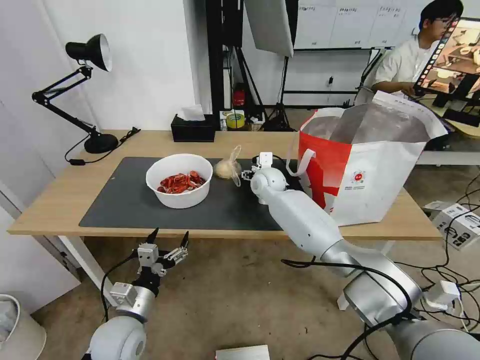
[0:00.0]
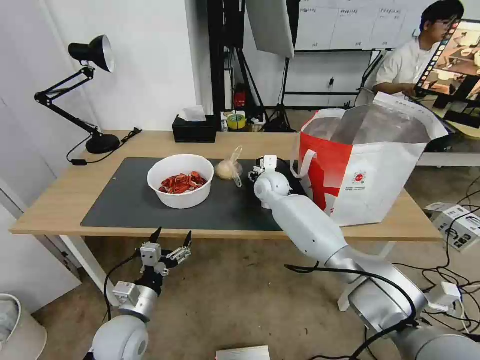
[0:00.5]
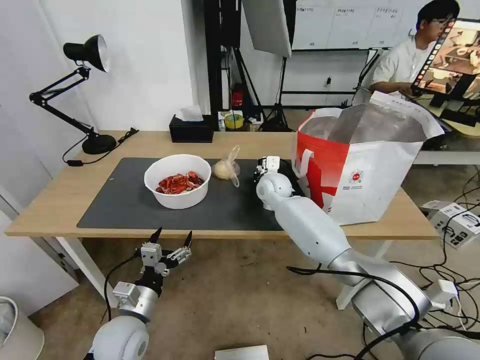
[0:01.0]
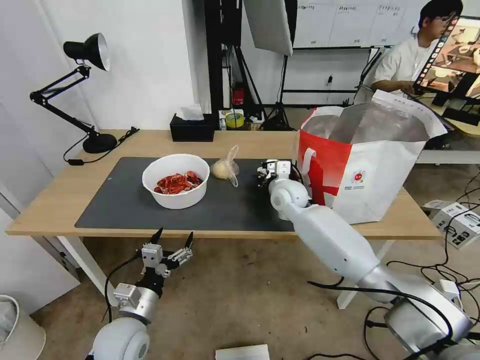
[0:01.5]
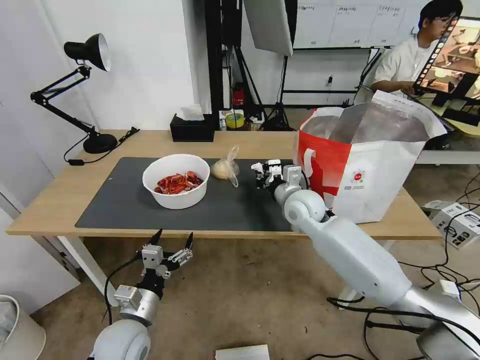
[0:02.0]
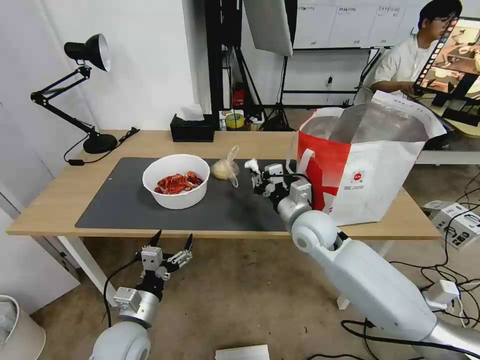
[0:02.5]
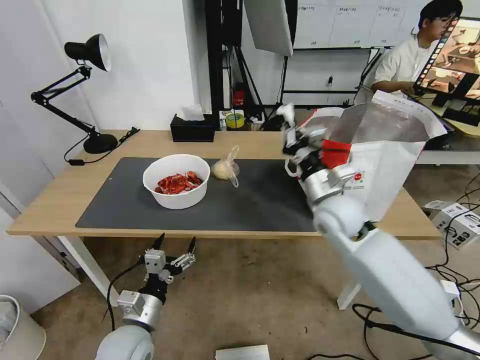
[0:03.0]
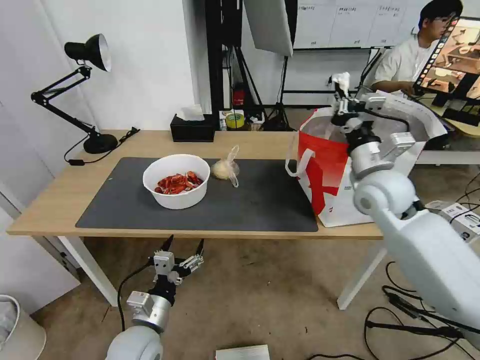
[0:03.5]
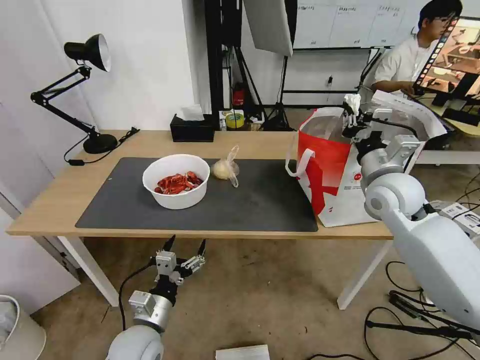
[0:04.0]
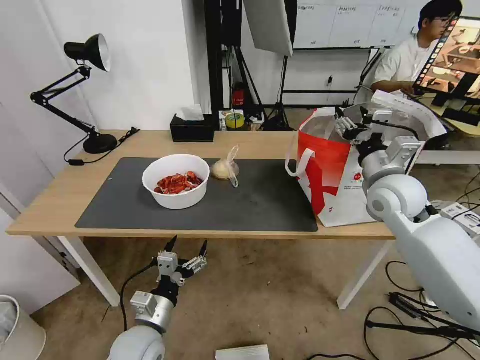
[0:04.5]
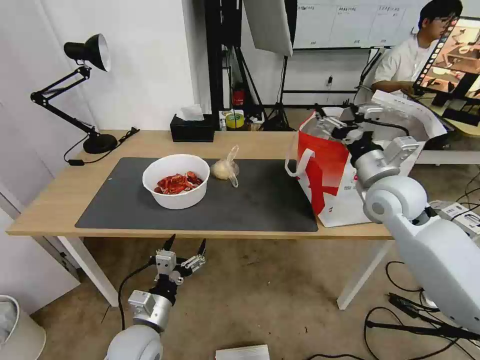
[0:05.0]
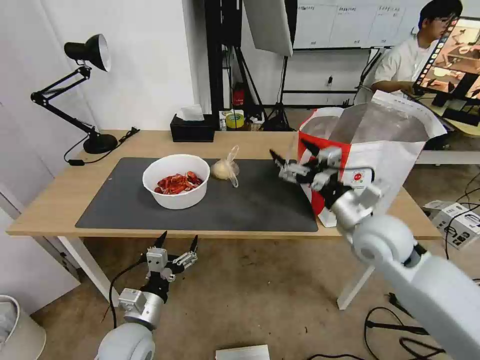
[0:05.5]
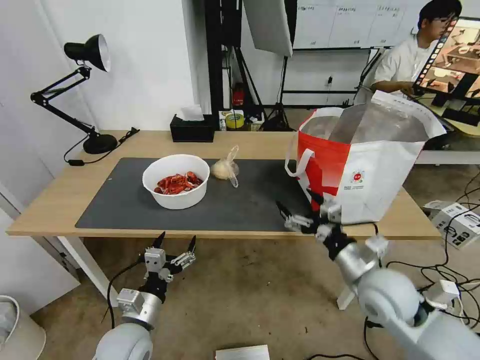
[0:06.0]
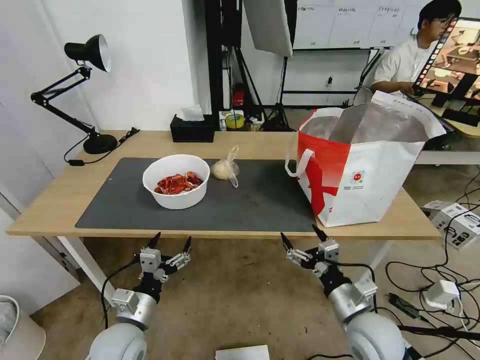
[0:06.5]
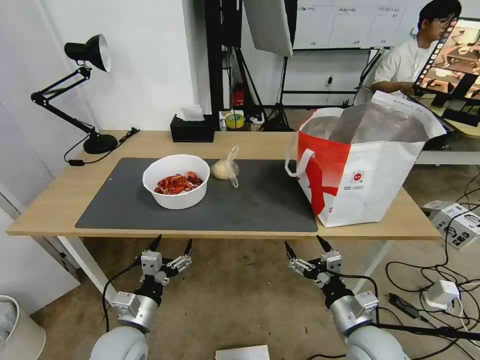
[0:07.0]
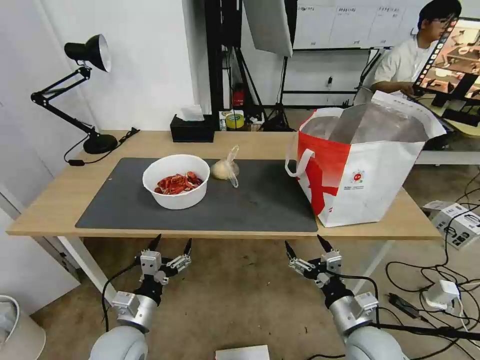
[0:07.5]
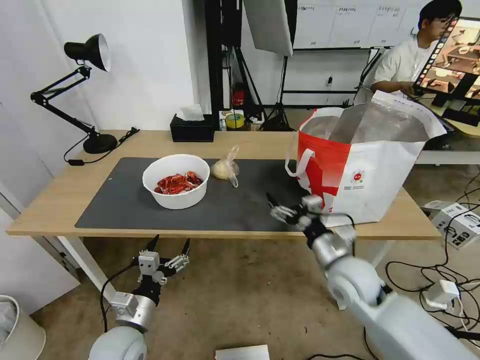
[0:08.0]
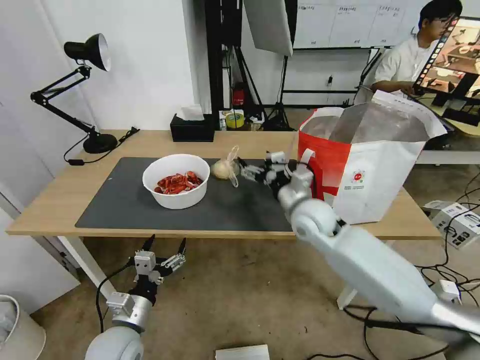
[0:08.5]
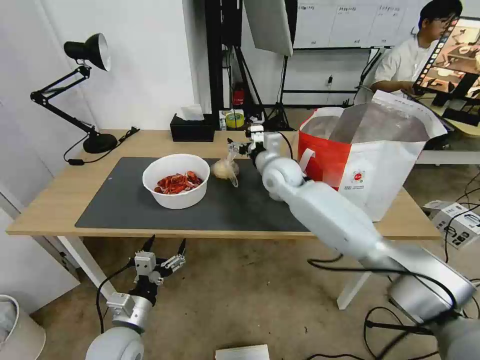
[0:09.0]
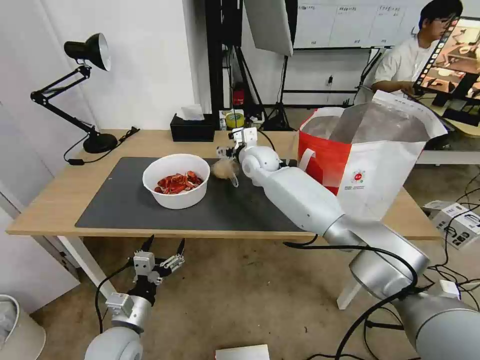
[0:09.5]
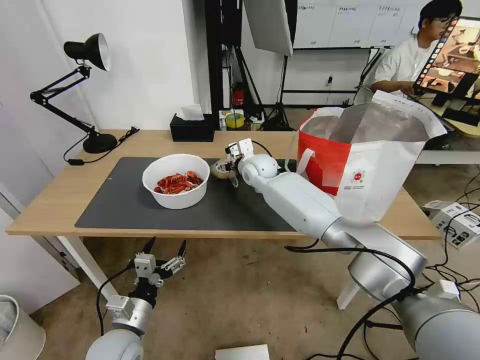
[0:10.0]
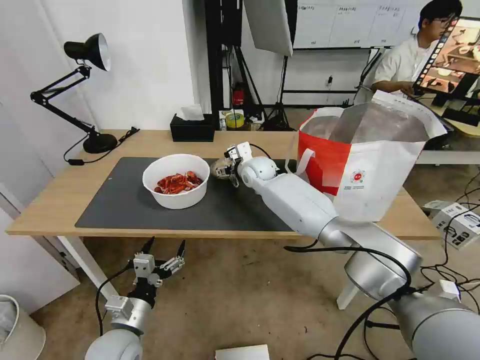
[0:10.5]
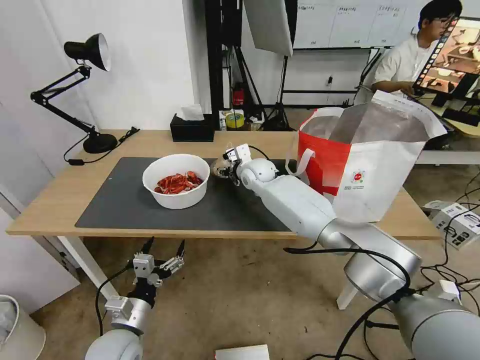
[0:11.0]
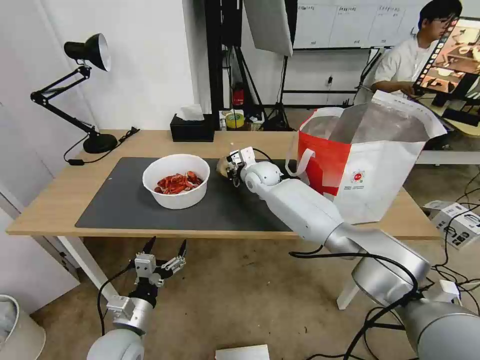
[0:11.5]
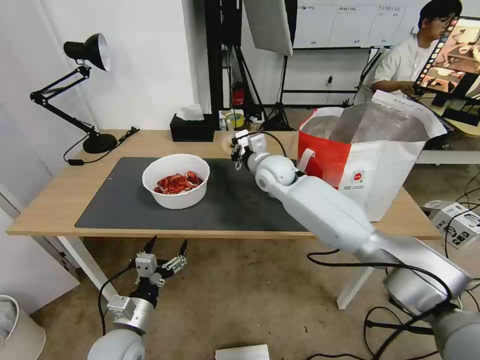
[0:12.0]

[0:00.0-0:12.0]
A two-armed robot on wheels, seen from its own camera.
Task of the whole recording: Pick up the trash from the table and place it into the takeout bag.
0:00.0 to 0:02.0: The right gripper moves backward and to the right, about 15 cm, and closes its fingers.
0:02.0 to 0:04.0: The right gripper goes approximately 20 cm to the right and upward.
0:04.0 to 0:06.0: The right gripper travels backward and downward by roughly 20 cm, and opens.
0:06.0 to 0:08.0: The right gripper goes backward and returns, some 10 cm each way.
0:08.0 to 0:10.0: The right gripper is displaced forward and to the left by about 35 cm.
0:10.0 to 0:12.0: The right gripper goes approximately 5 cm backward, and closes.

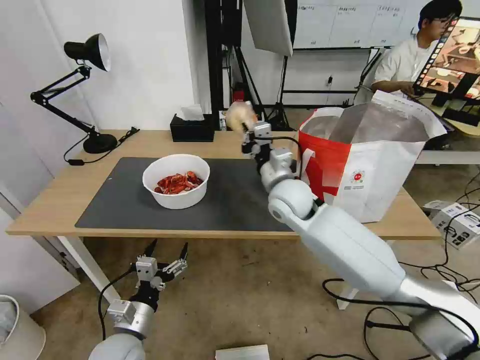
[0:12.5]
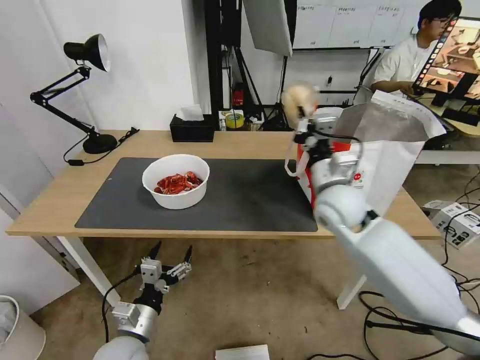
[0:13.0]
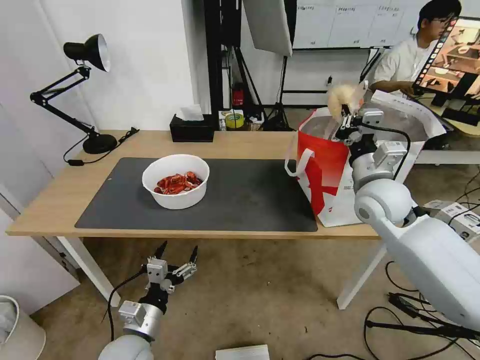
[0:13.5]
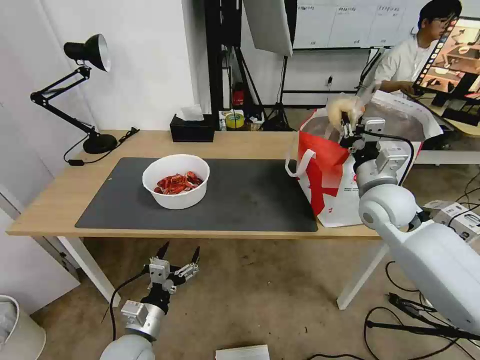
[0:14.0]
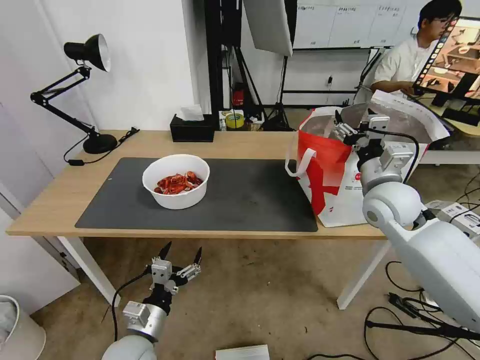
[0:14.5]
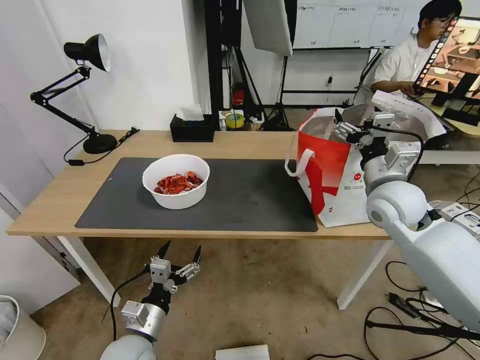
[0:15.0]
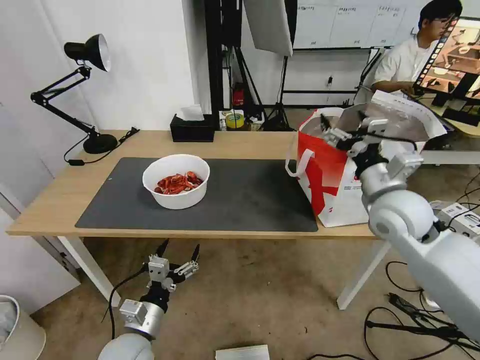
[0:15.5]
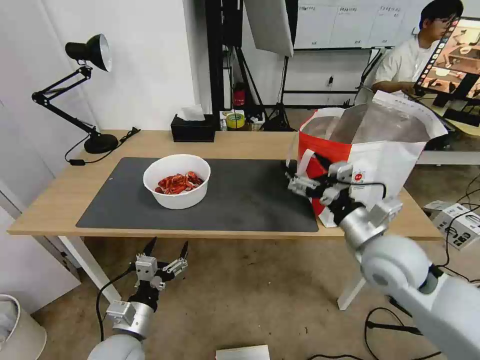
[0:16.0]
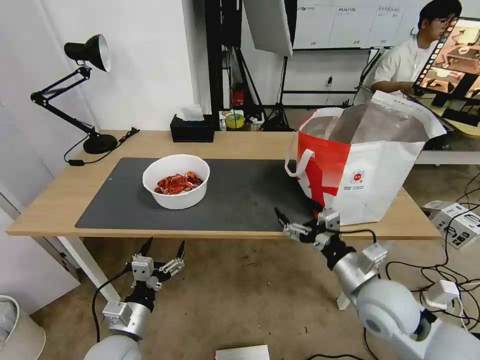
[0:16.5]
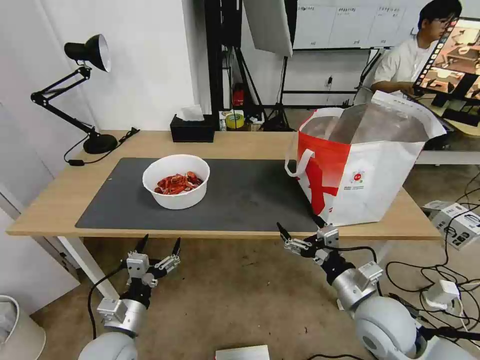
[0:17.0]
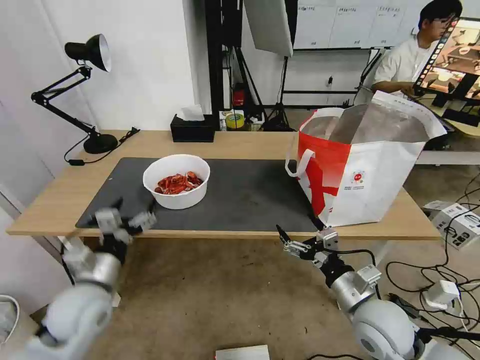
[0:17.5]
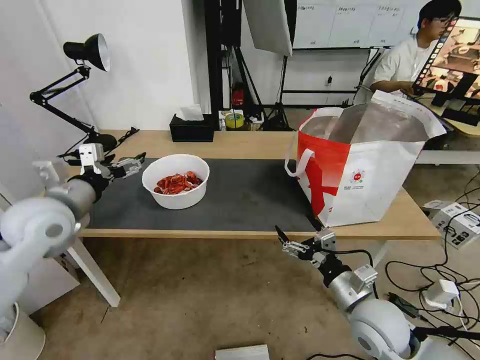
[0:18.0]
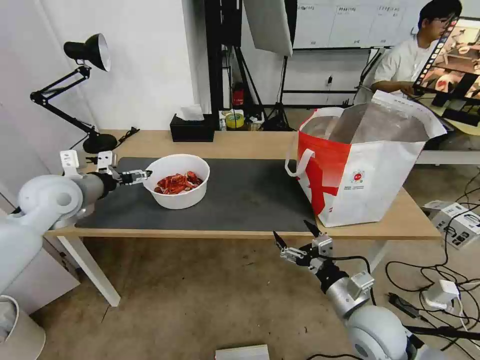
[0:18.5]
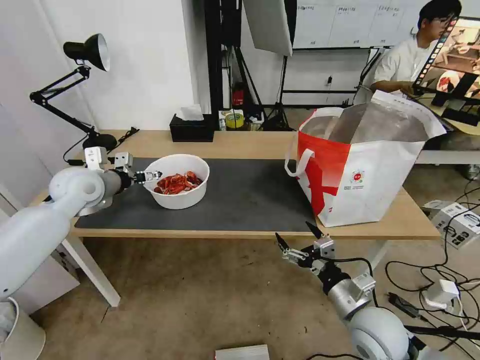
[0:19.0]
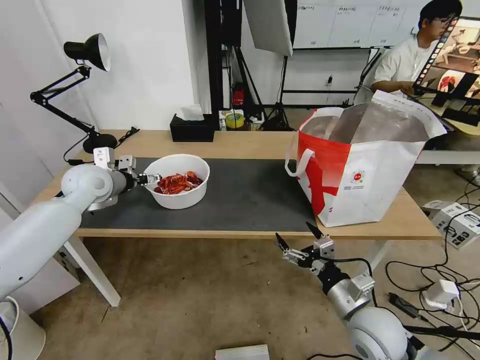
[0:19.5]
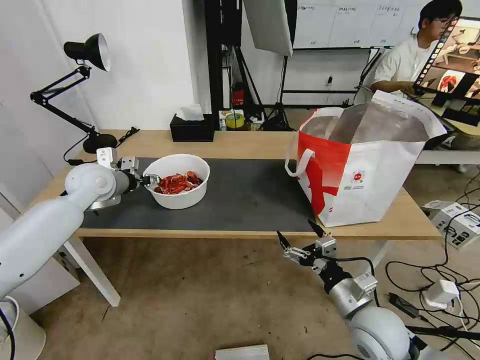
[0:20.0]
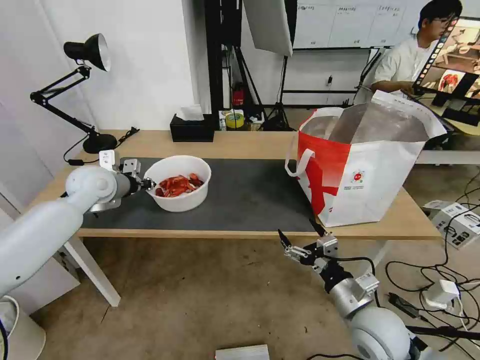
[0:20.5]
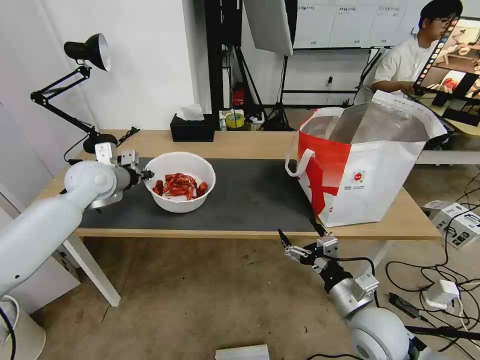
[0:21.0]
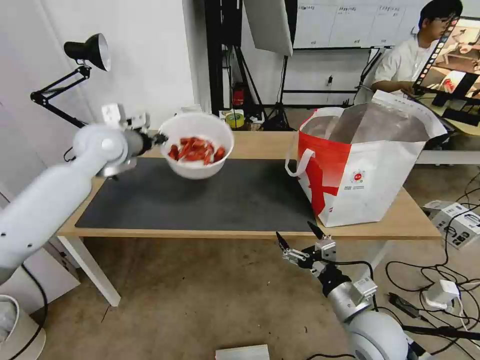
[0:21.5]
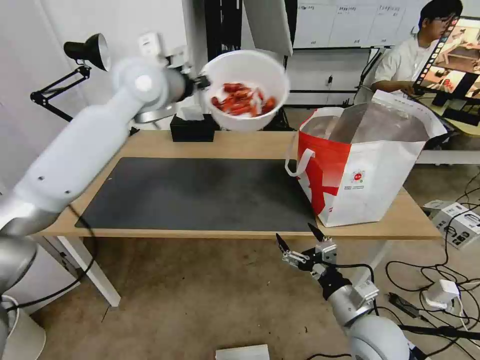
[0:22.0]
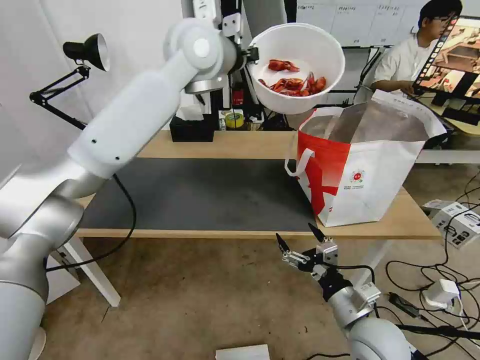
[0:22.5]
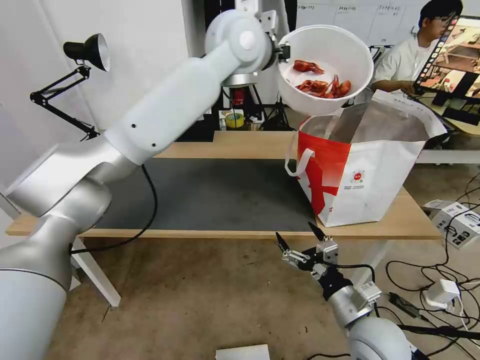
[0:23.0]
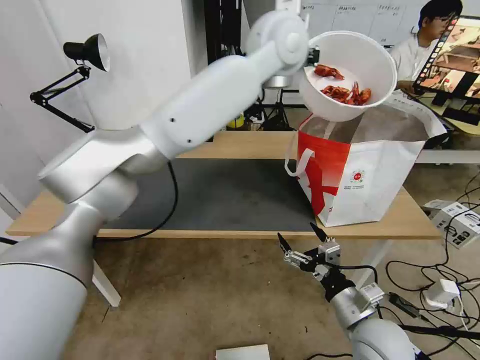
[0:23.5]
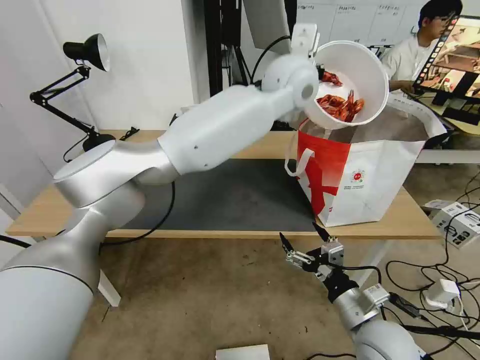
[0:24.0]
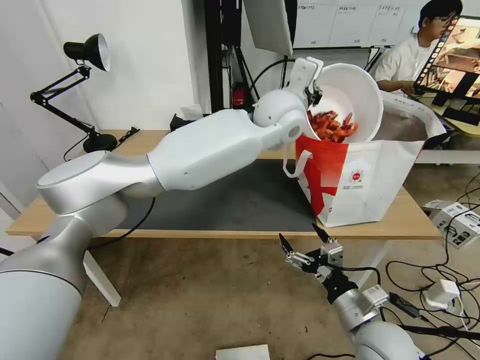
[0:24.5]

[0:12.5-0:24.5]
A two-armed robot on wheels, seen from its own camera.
Task of the whole recording: Pick up the trash from the table and place it into the takeout bag.
0:12.5 to 0:14.5: The right gripper is displaced to the right by about 20 cm, and opens up.
0:14.5 to 0:16.5: The right gripper is displaced backward and downward by roughly 20 cm.
0:16.5 to 0:18.5: The right gripper is displaced downward by some 5 cm, while the left gripper moves upward, forward and to the left, about 35 cm.
0:18.5 to 0:20.5: The left gripper travels forward by roughly 5 cm, and closes.
0:20.5 to 0:22.5: The left gripper shifts approximately 35 cm upward and to the right.
0:22.5 to 0:24.5: The left gripper heads to the right and downward, covering some 20 cm.

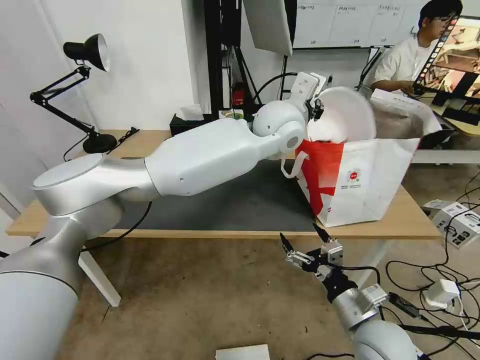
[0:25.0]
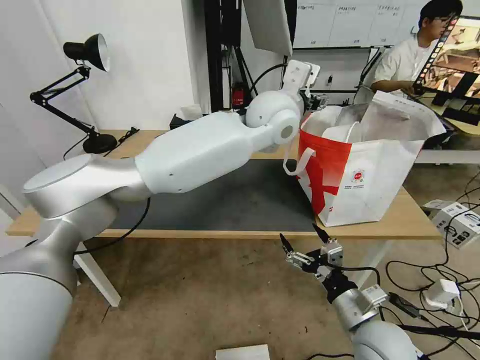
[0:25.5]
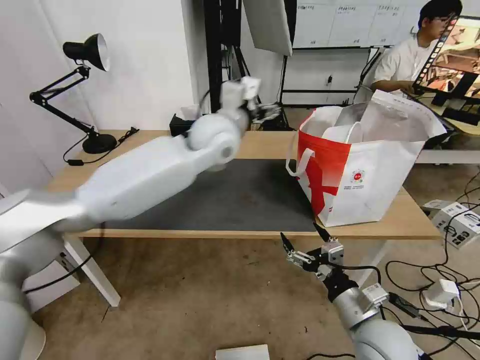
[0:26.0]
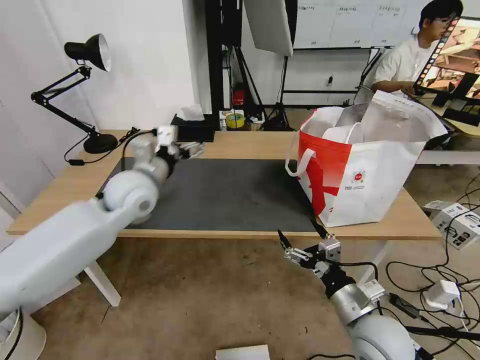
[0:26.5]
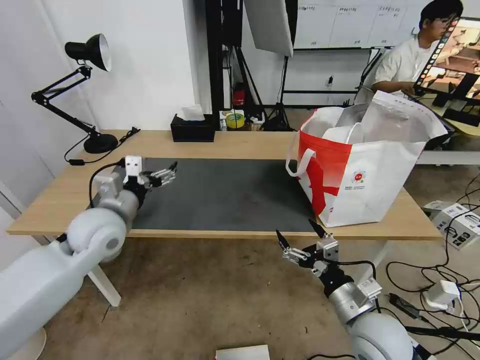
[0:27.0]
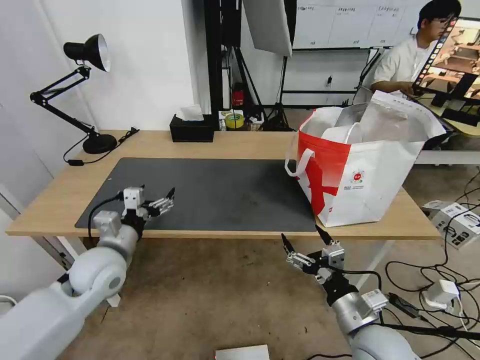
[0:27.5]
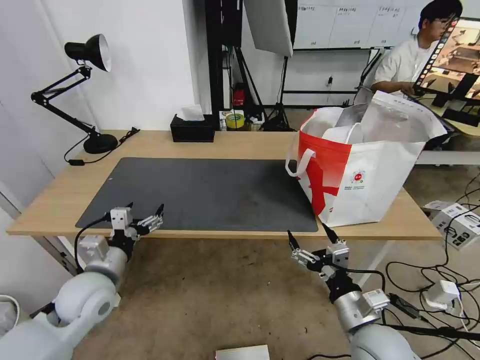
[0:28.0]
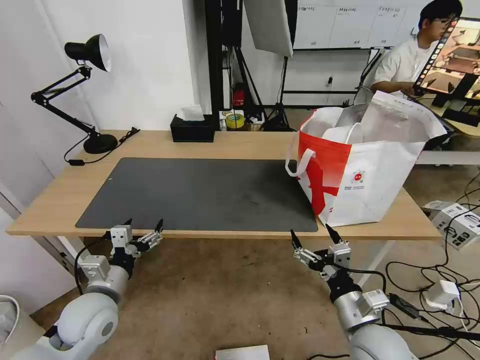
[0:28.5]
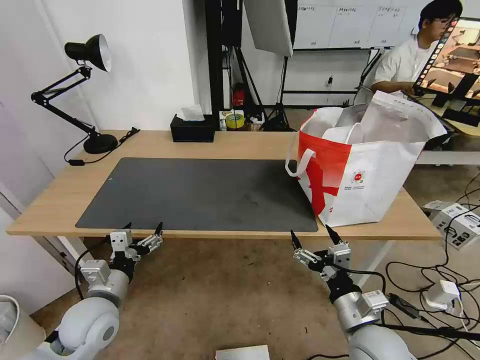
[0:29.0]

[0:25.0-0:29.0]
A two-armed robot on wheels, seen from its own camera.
Task of the whole recording: Pick up the trash from the table and place it into the takeout bag.
0:25.0 to 0:27.0: The left gripper travels to the left, downward and backward by roughly 40 cm, and opens its fingers.
0:27.0 to 0:29.0: The left gripper is displaced downward and backward by roughly 15 cm.
